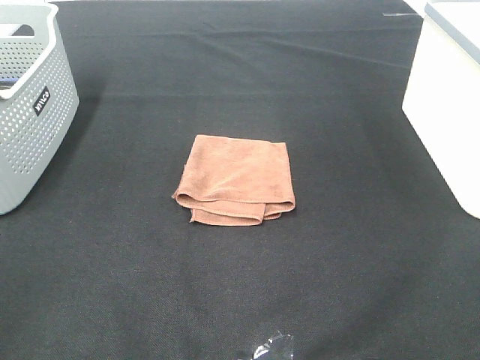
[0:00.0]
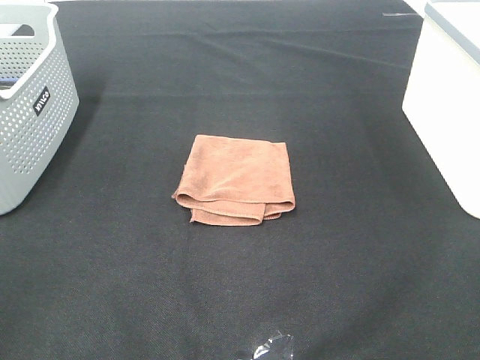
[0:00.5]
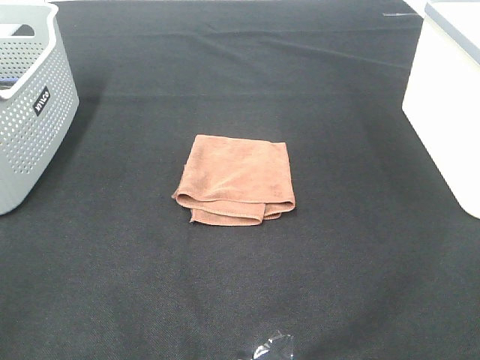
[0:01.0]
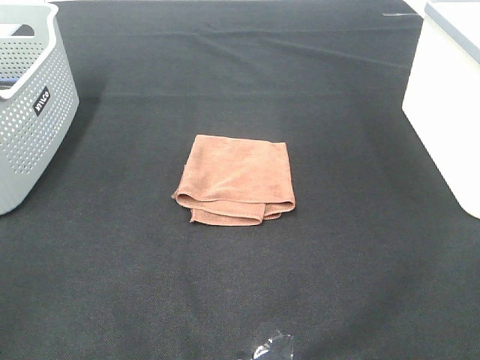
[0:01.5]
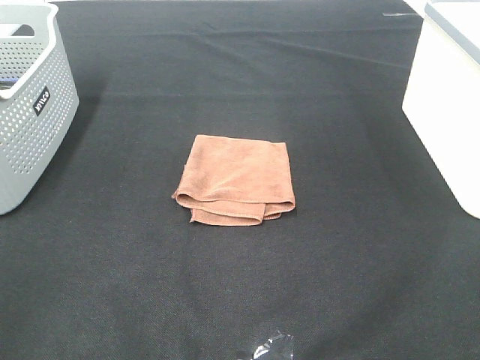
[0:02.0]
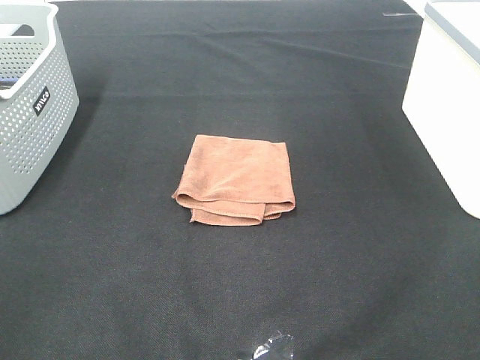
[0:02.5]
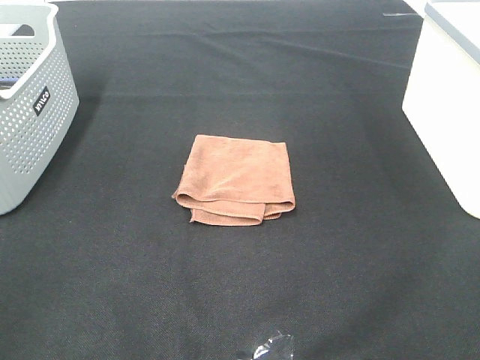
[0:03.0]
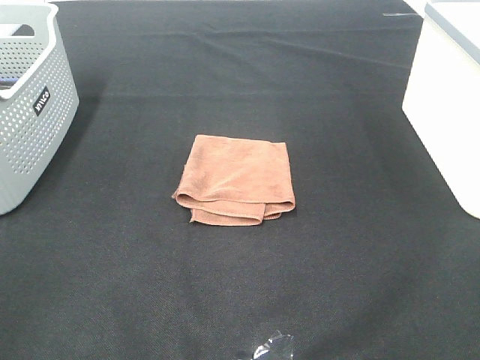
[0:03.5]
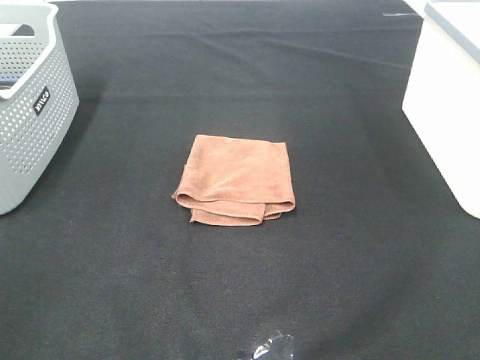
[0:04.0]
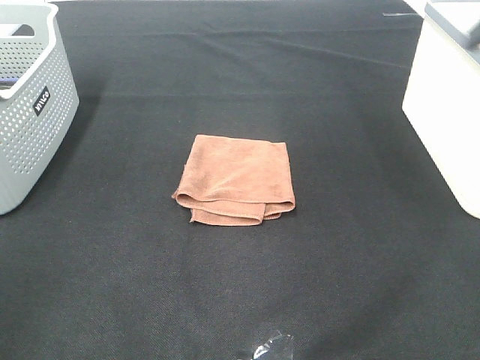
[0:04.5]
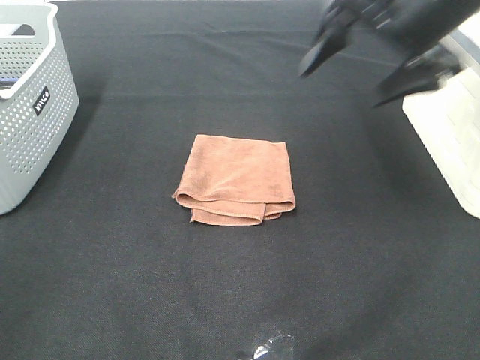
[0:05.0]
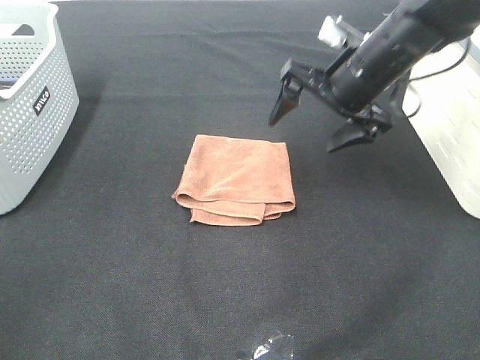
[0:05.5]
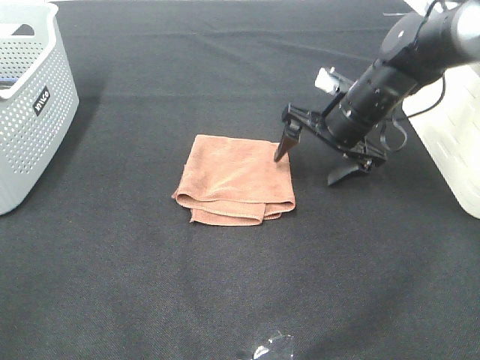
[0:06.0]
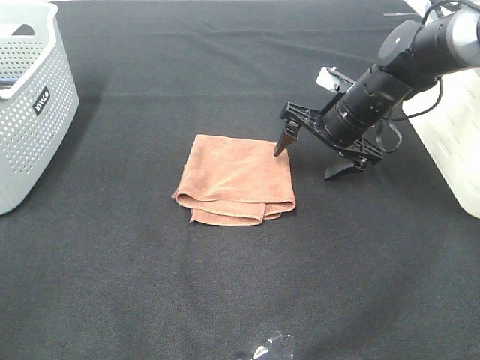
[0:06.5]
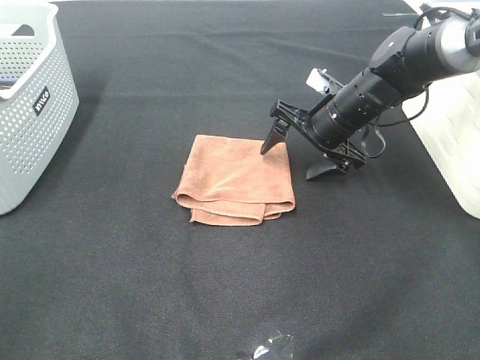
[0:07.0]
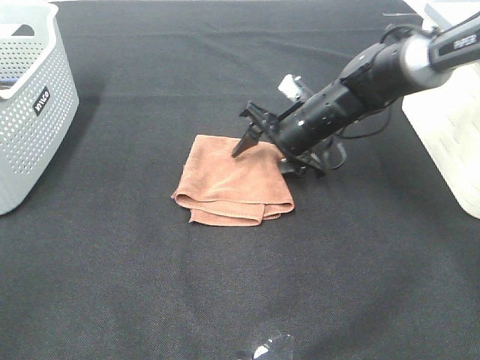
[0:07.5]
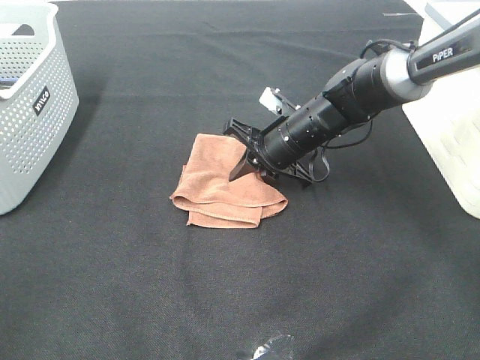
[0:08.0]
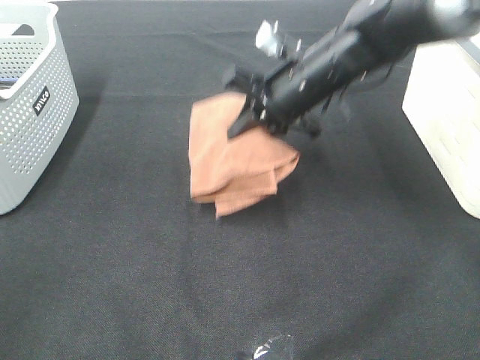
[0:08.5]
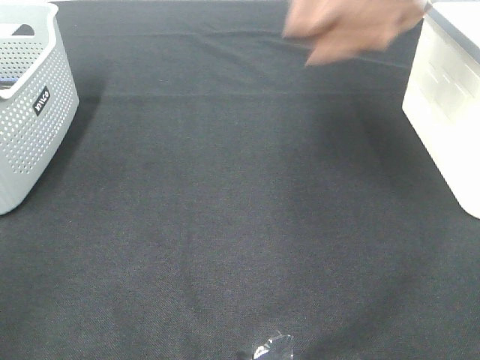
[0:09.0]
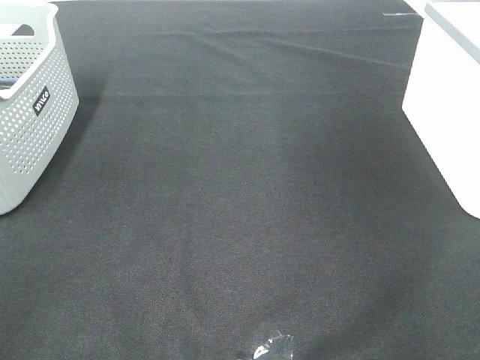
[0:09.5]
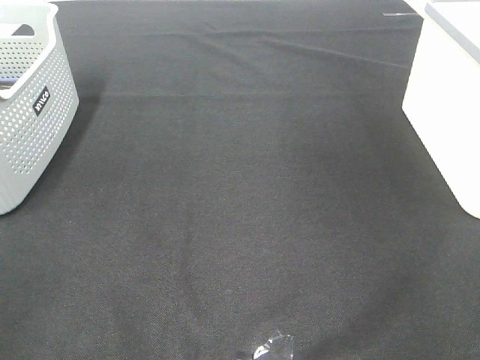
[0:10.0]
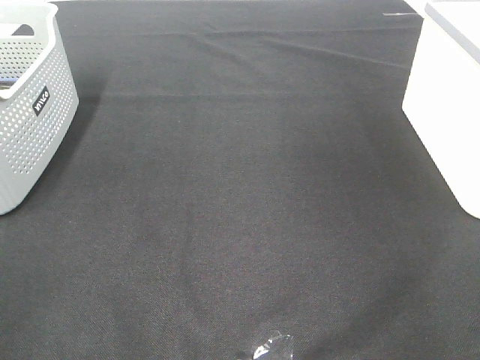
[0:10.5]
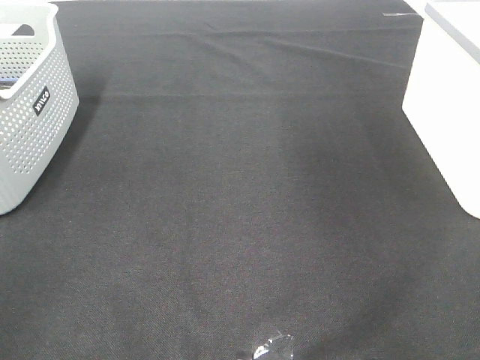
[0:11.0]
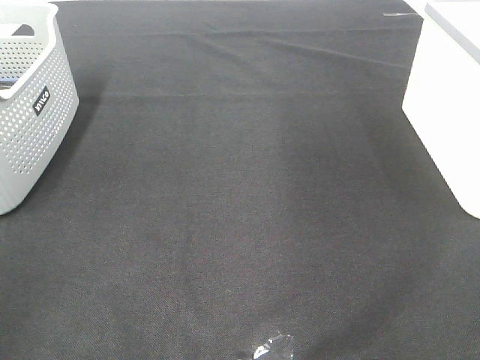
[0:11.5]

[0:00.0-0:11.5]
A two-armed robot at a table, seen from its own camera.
Step, 0:00.0 to 0:08.0: Right hand: grab the folded brown towel.
Step, 0:08.5 to 0:10.0: Right hand: place the brown towel in right basket.
0:00.0 to 0:02.0: Neither gripper changes place.
0:04.0 to 0:06.0: The right gripper shifts about 40 cm forward, downward and to the left.
0:06.0 to 0:07.5: The right gripper goes about 5 cm to the left.
0:07.5 to 0:09.5: The right gripper travels upward and to the right by some 40 cm, and closes up.

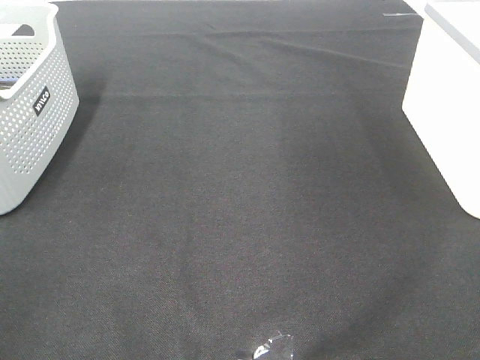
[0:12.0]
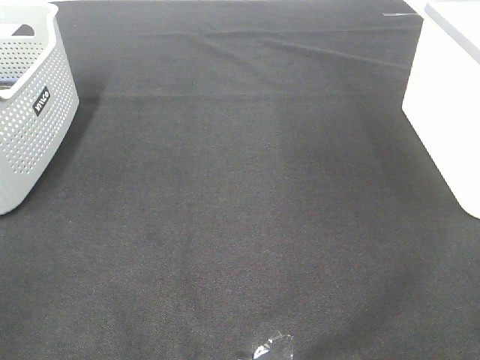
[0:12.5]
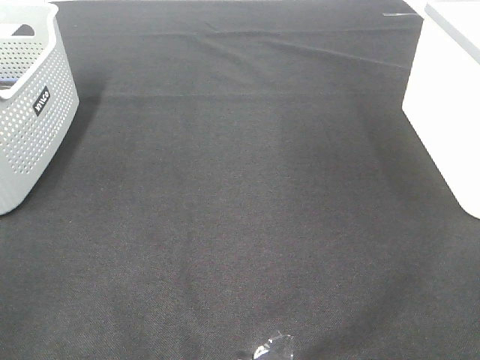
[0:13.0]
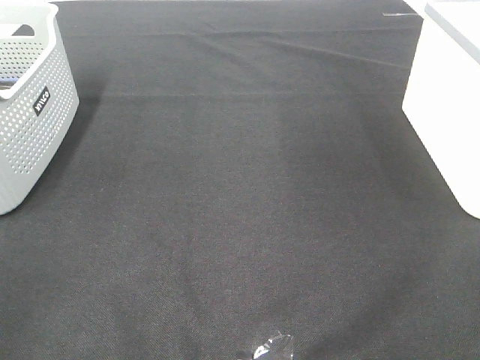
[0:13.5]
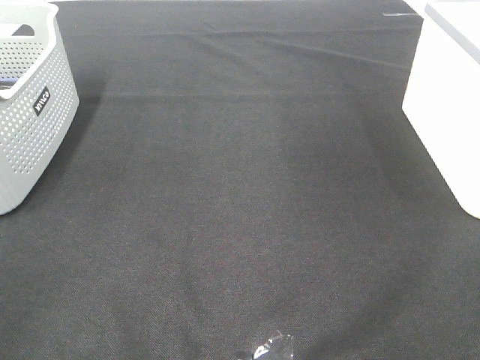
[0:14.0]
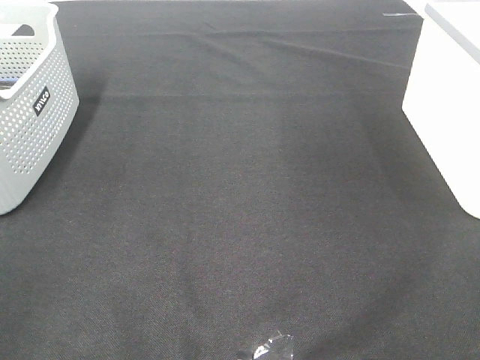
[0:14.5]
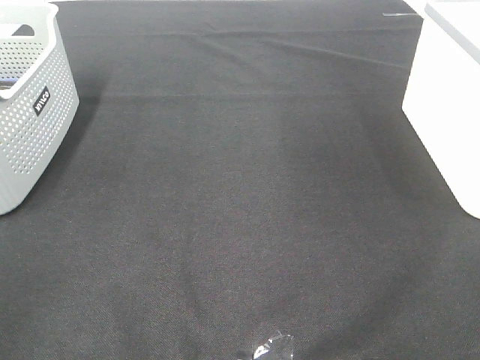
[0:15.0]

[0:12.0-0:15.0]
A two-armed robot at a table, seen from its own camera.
0:13.5 to 0:15.0: The two grippers keep their place.

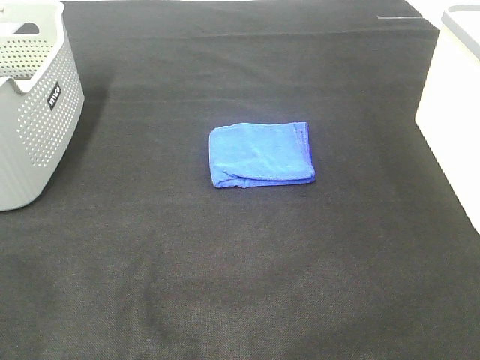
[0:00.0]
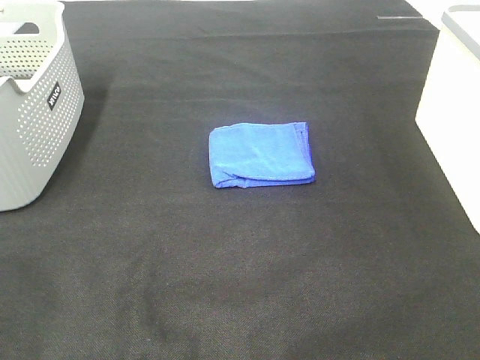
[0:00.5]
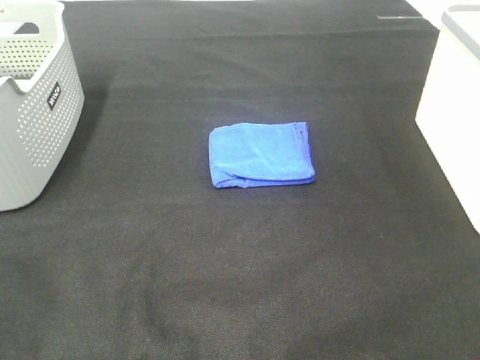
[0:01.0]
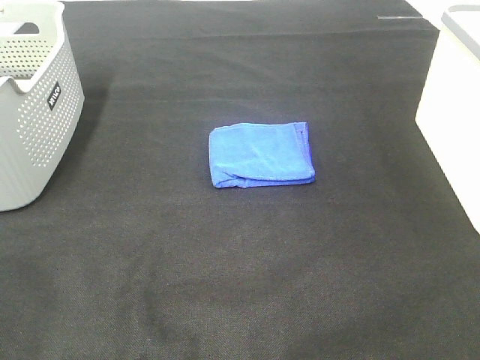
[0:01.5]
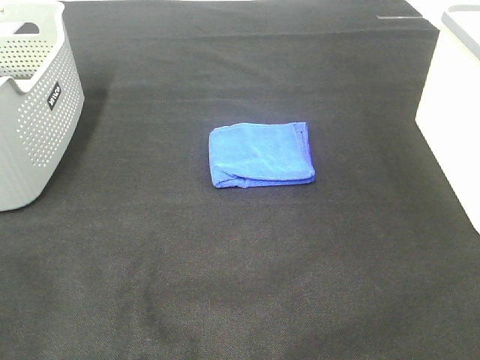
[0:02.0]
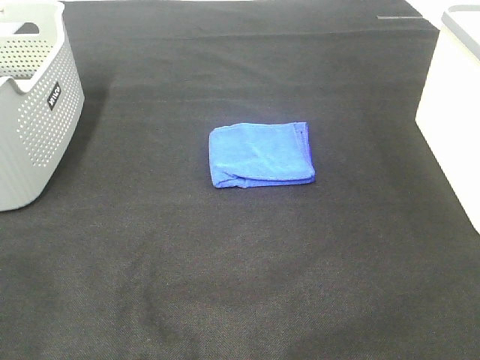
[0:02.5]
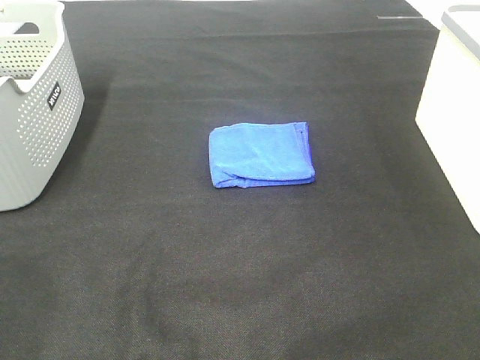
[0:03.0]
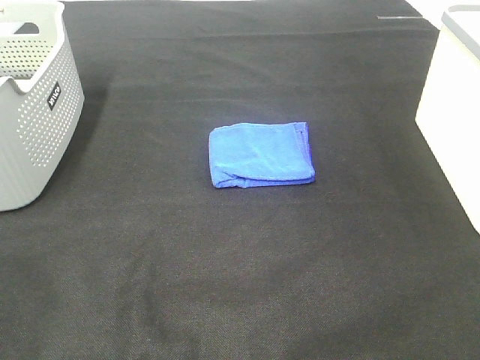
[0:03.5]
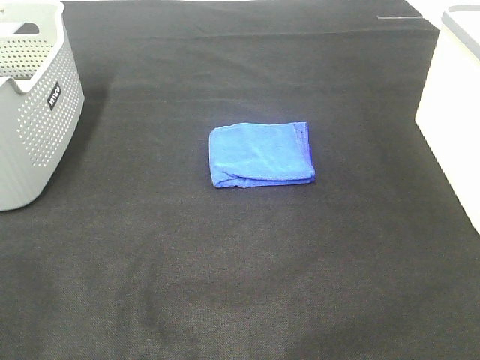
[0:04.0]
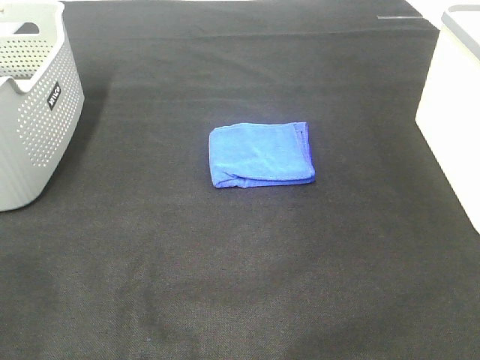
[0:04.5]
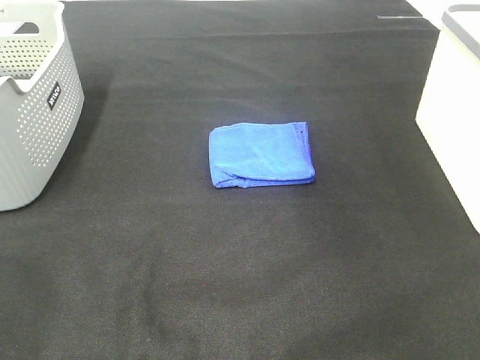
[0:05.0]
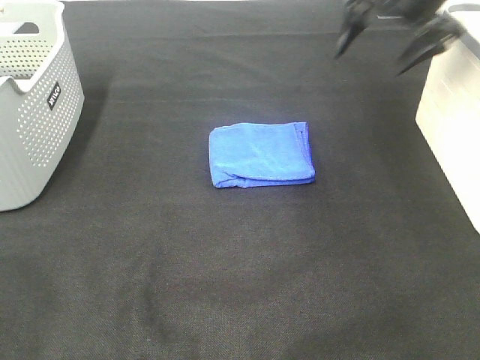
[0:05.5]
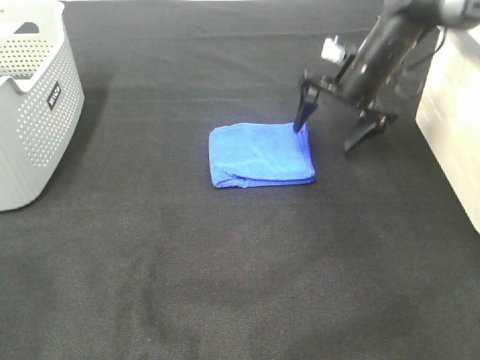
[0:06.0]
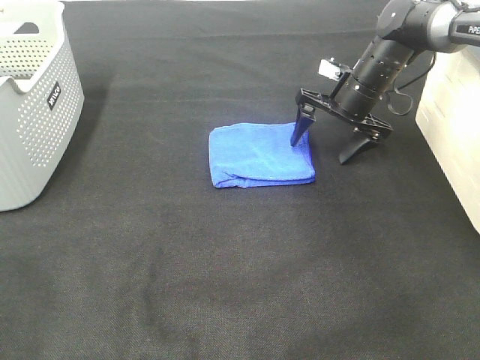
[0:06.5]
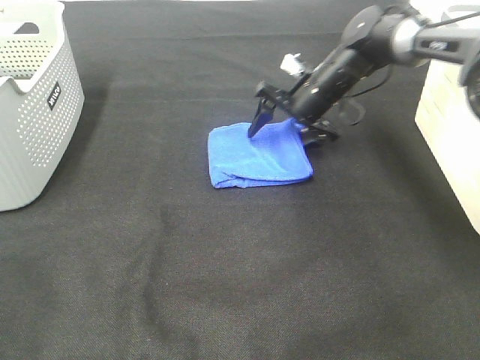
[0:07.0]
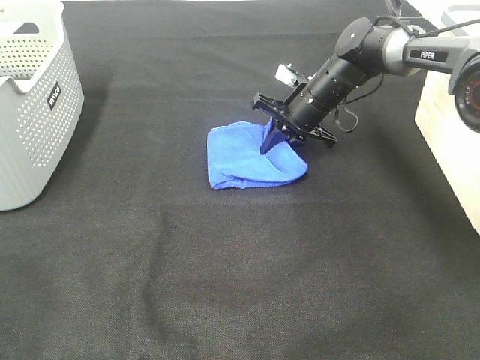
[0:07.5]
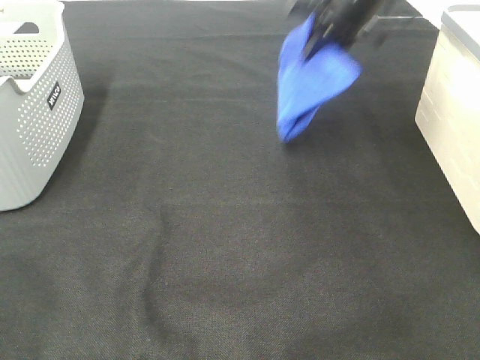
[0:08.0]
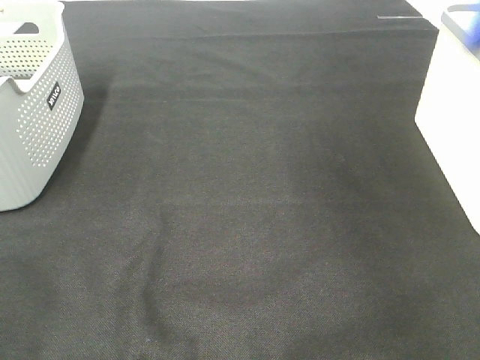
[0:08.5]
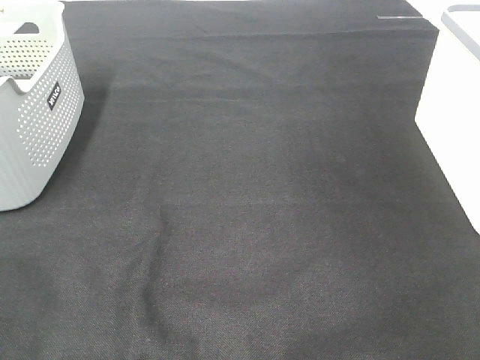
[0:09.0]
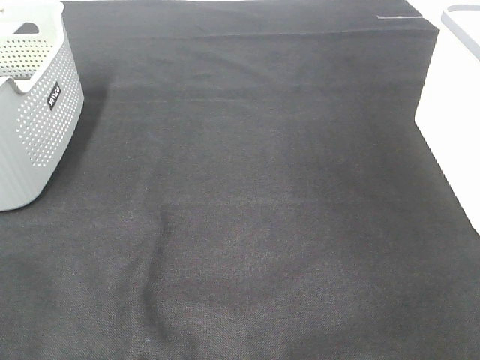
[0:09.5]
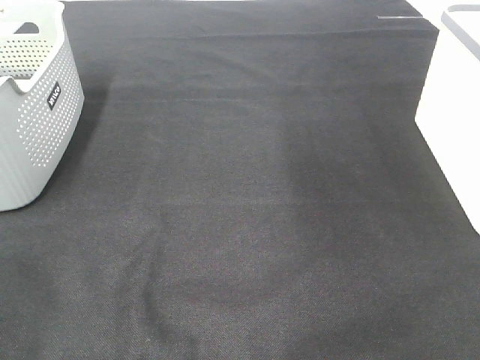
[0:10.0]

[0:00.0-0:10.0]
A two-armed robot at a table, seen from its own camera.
Step, 0:00.0 to 0:07.0: Right hand: grab the folded blue towel.
Step, 0:07.5 to 0:09.0: Right hand: place the blue towel in right basket.
0:00.0 to 0:02.0: Both grippers stay put.
0:04.0 to 0:06.0: The right gripper shifts some 40 cm forward and downward.
0:06.0 to 0:08.0: The right gripper heads upward, covering roughly 15 cm, and closes its fingers.
0:08.0 to 0:10.0: The right gripper heads to the right, backward and upward, covering roughly 20 cm, and opens.

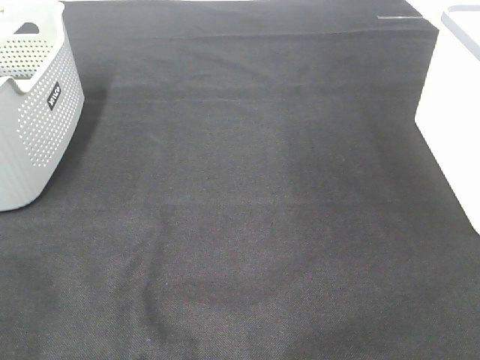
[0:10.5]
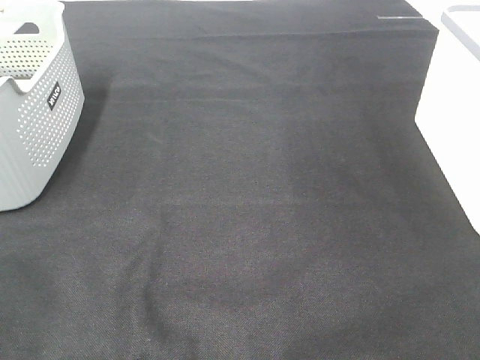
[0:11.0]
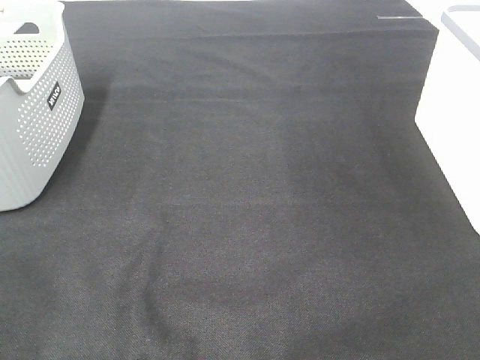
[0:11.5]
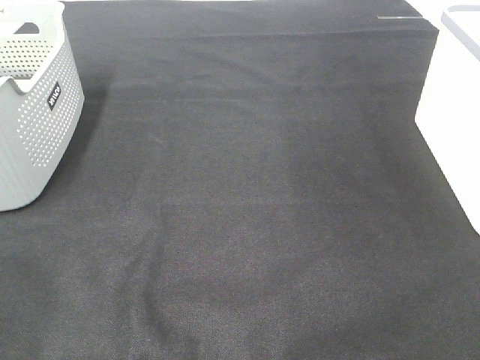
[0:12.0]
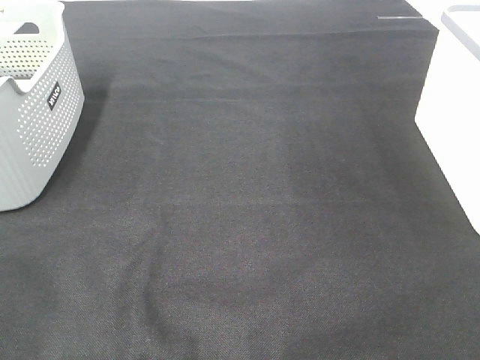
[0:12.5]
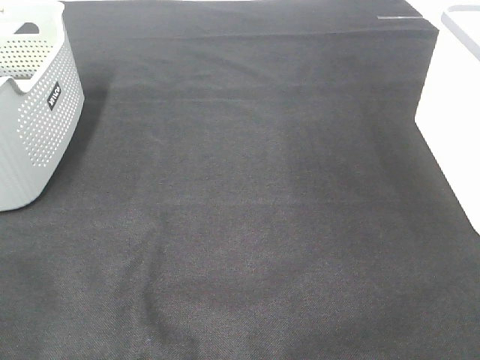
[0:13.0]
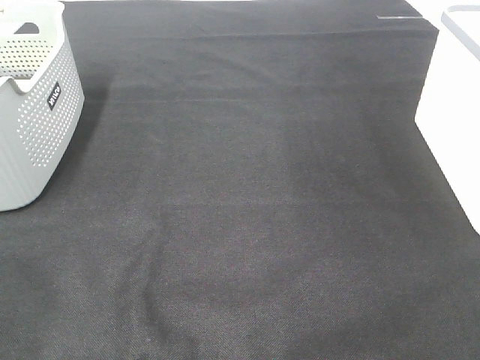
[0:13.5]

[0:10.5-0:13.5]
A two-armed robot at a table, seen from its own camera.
0:12.0 to 0:13.5: Neither gripper changes place.
